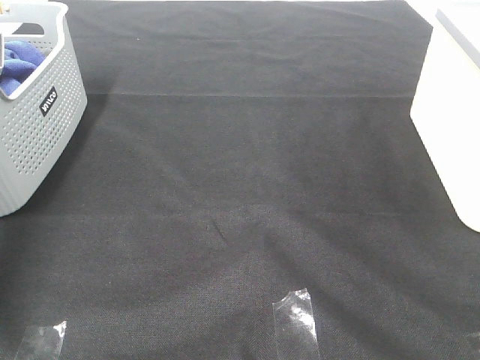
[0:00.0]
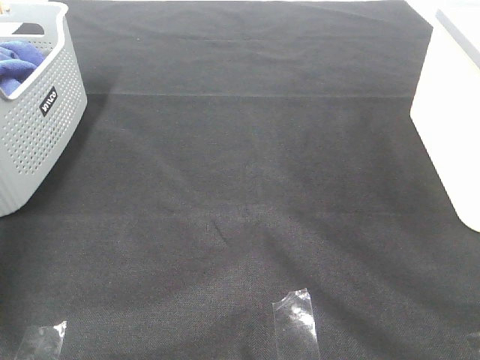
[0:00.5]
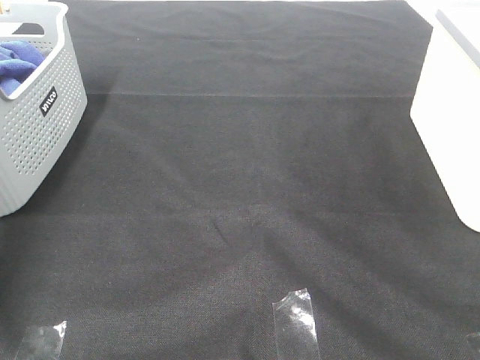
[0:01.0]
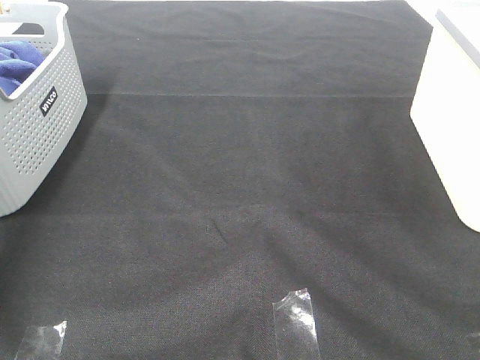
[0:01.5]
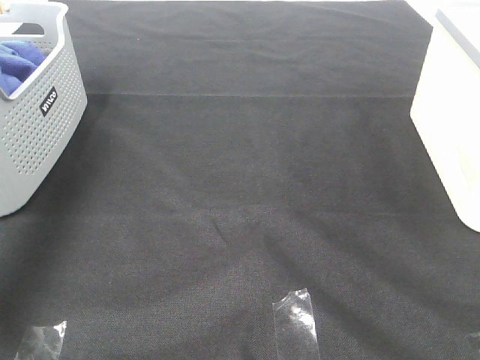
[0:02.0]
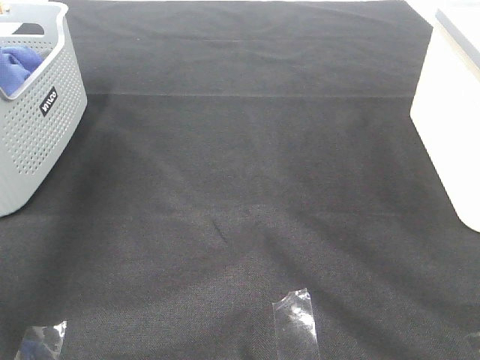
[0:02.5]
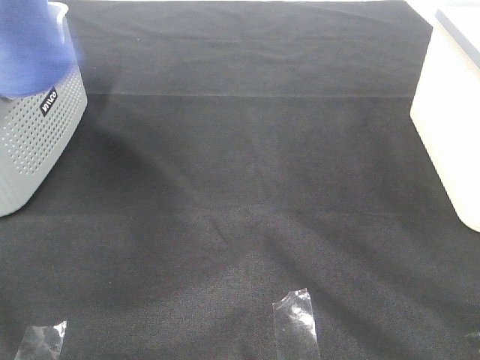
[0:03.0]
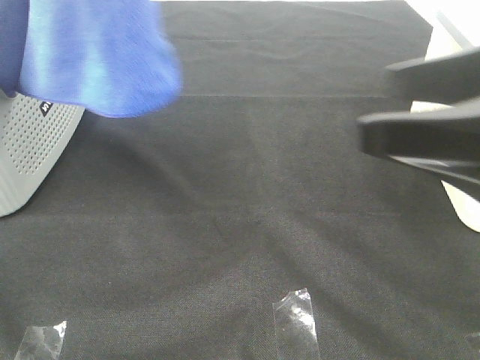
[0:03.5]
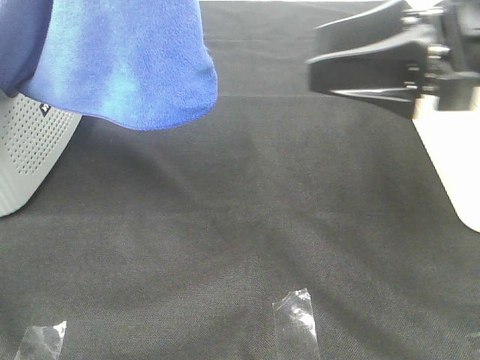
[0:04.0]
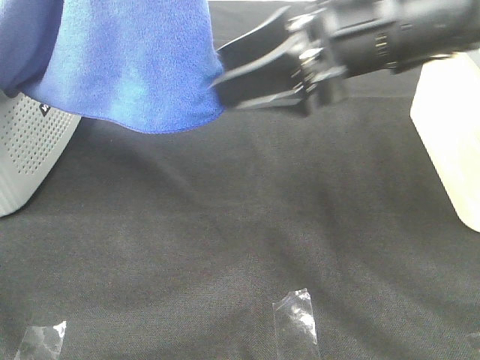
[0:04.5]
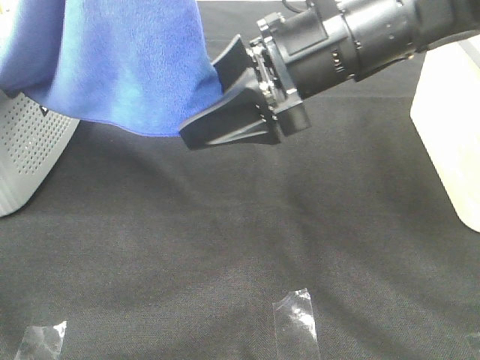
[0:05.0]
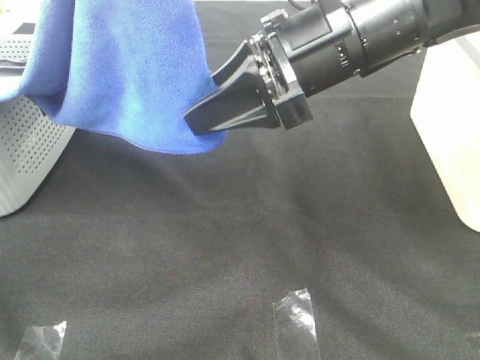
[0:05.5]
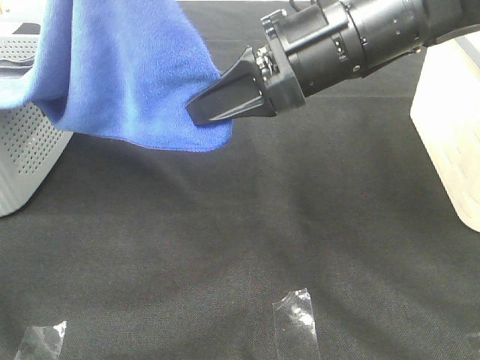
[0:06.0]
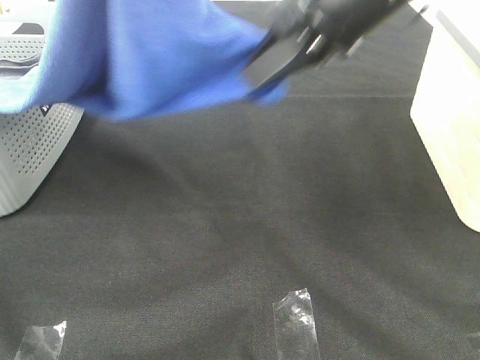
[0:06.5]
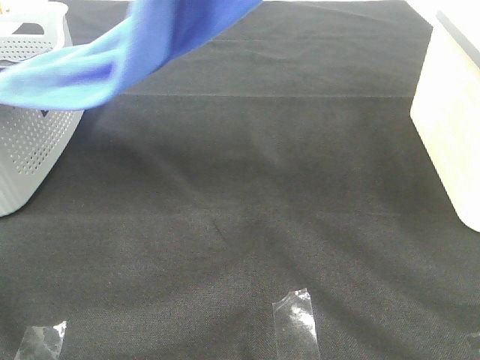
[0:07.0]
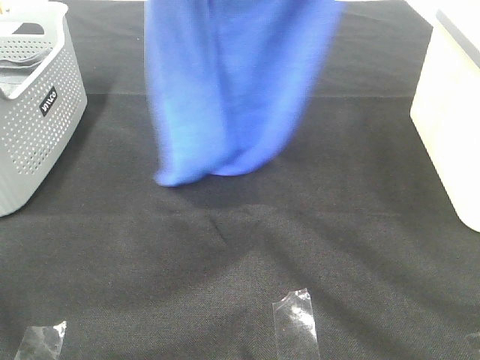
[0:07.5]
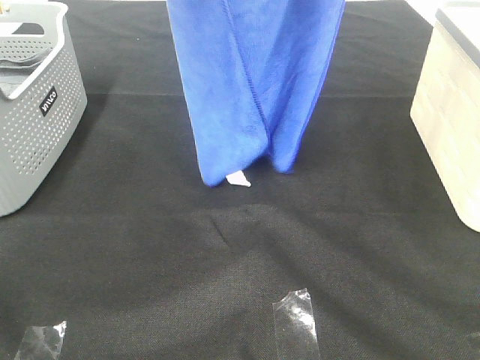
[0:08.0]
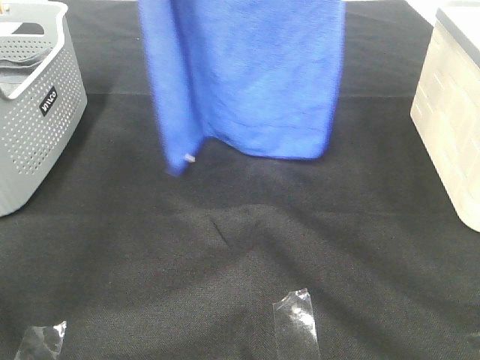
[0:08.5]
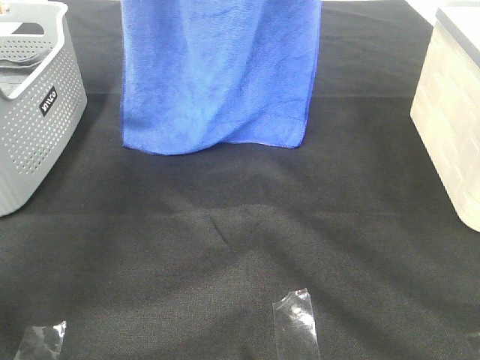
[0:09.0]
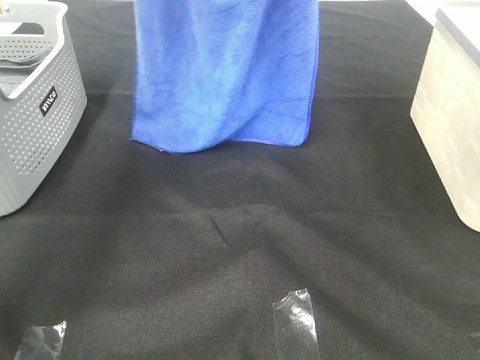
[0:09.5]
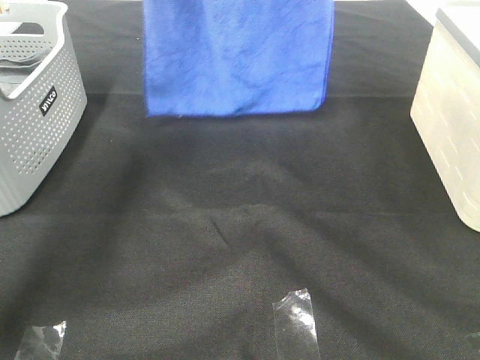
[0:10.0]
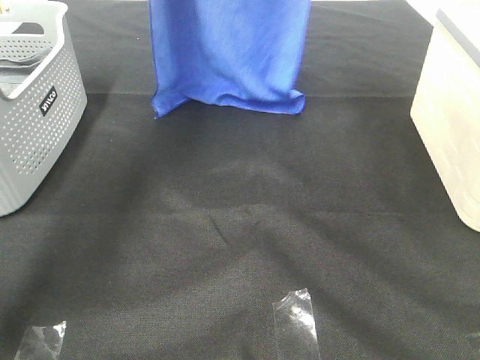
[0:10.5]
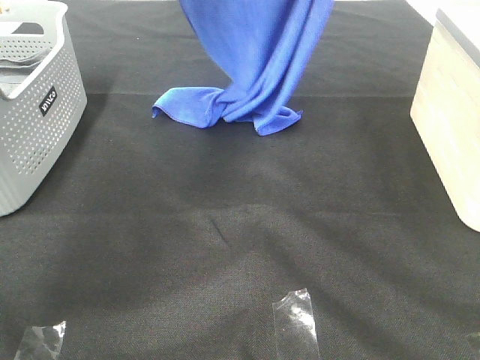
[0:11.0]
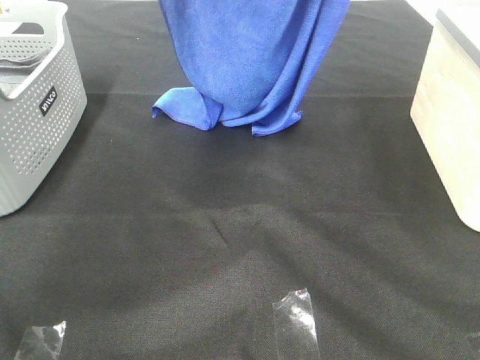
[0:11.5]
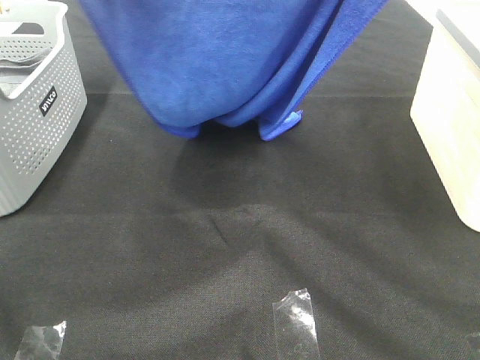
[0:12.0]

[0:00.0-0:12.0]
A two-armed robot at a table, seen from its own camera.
Task of the whole recording: Remove the towel and place it.
Step, 0:02.5 to 0:05.5: Right hand: grab a corner of the blue towel and straighten it.
Step, 0:06.0 to 0:11.5: Left hand: spread the blue towel flat on the table.
Step, 0:06.0 to 0:11.5: Right hand: spread the blue towel flat on the table.
0:00.0 to 0:02.0: The left gripper is displaced upward by approximately 25 cm, and closes up.
0:02.0 to 0:04.0: The left gripper heads to the right, backward and upward, covering about 30 cm. Meanwhile the right gripper goes some 25 cm forward.
0:04.0 to 0:06.0: The right gripper is displaced to the left by about 10 cm, and closes its fingers.
0:06.0 to 0:08.0: The right gripper heads upward, covering about 25 cm. The left gripper shifts some 15 cm forward.
0:08.0 to 0:10.0: The two grippers go approximately 15 cm forward.
0:10.0 to 0:12.0: The grippers both shift backward by approximately 15 cm.

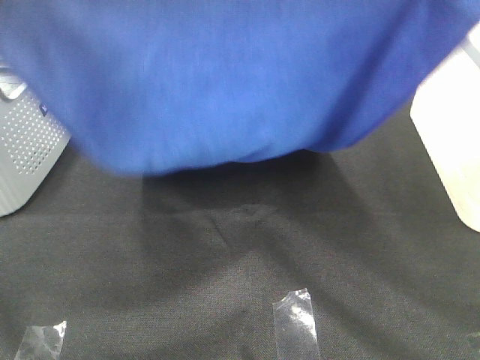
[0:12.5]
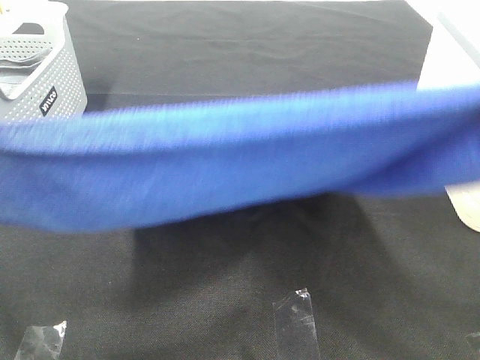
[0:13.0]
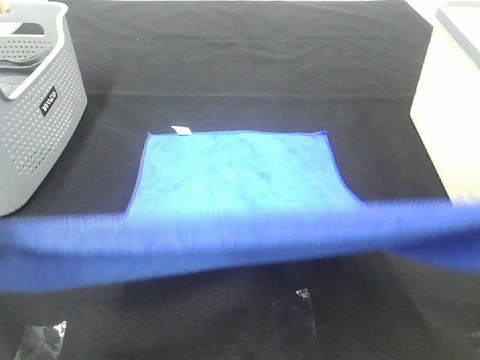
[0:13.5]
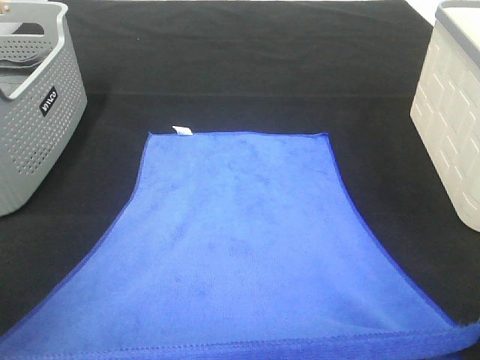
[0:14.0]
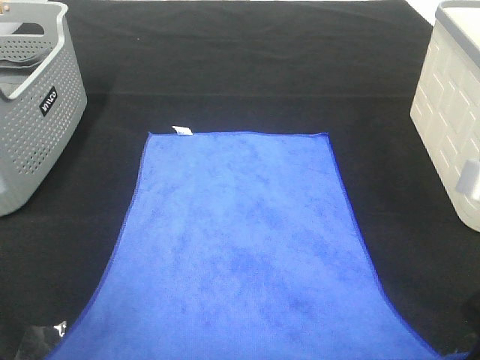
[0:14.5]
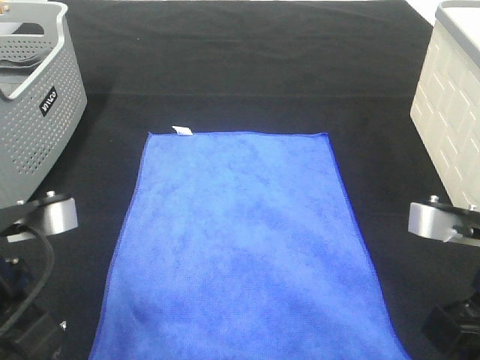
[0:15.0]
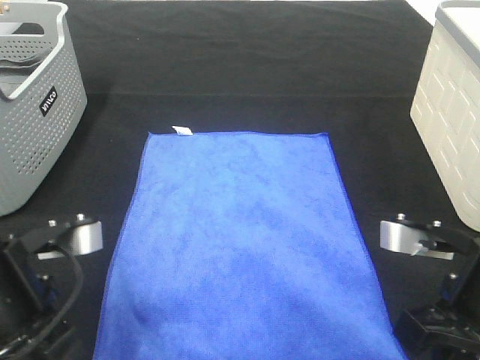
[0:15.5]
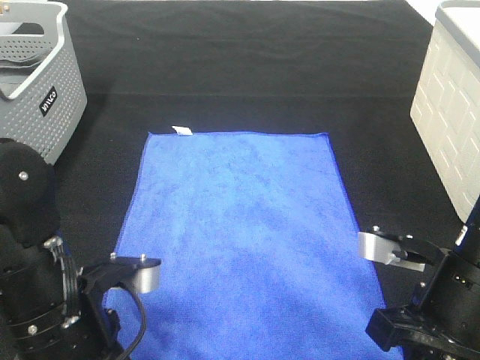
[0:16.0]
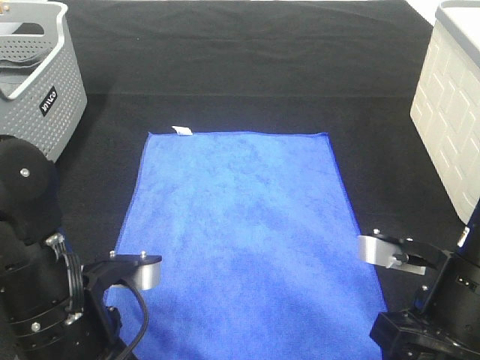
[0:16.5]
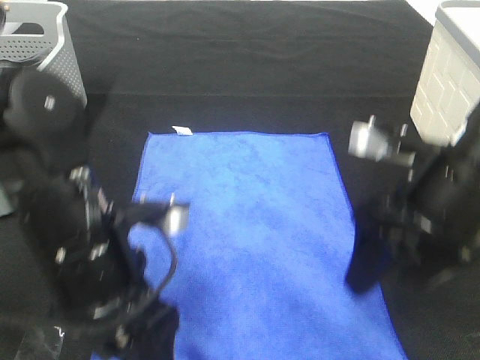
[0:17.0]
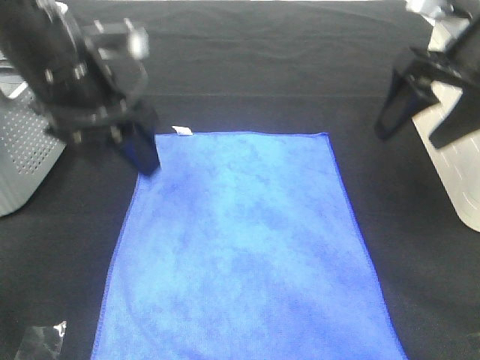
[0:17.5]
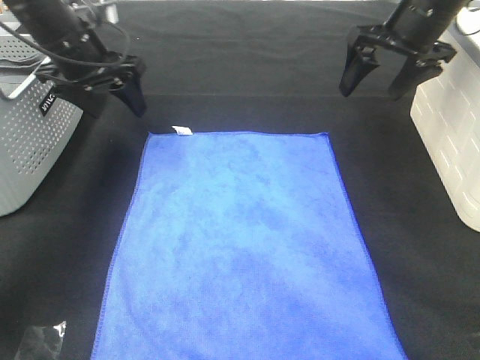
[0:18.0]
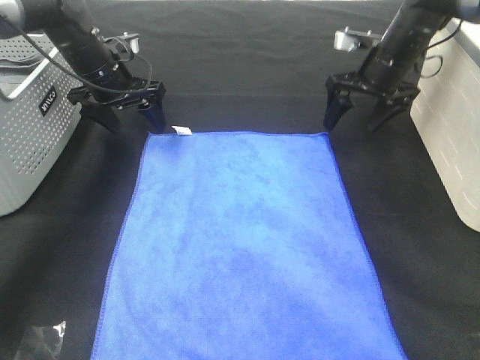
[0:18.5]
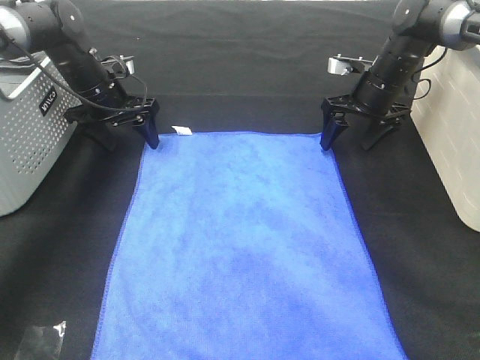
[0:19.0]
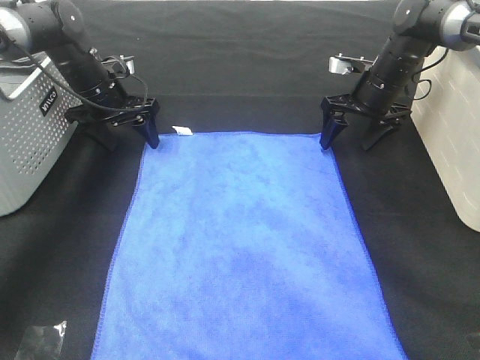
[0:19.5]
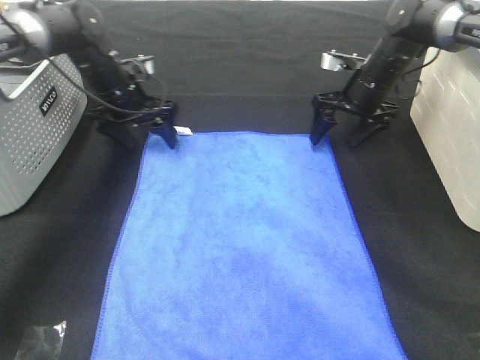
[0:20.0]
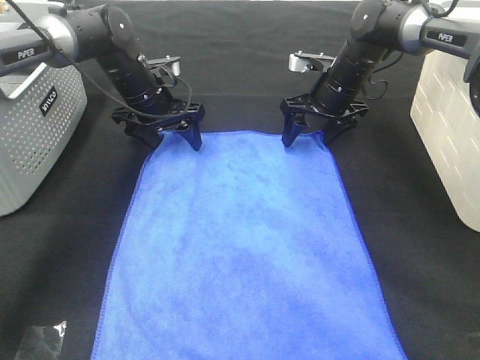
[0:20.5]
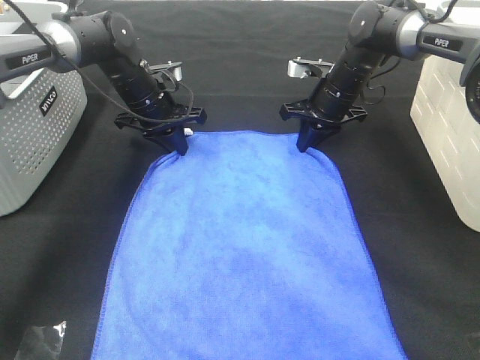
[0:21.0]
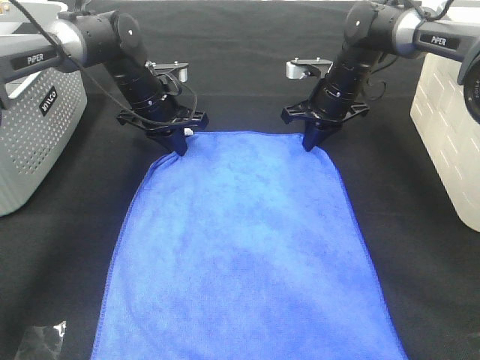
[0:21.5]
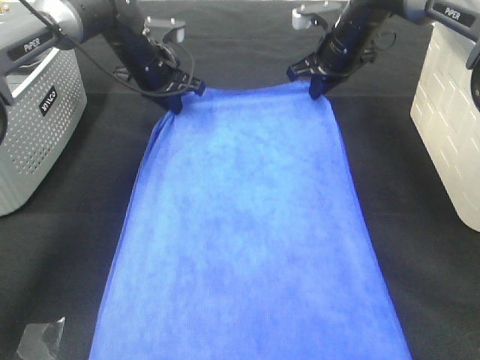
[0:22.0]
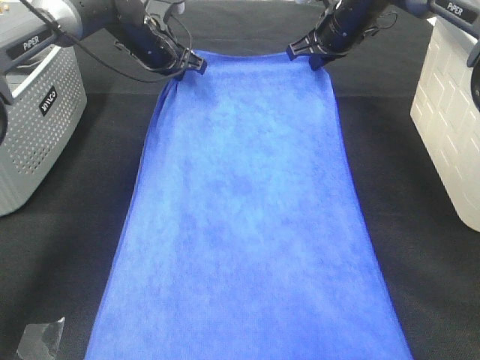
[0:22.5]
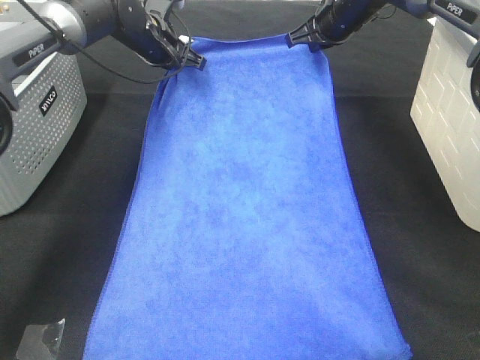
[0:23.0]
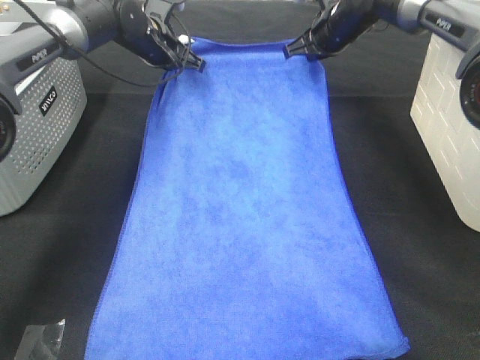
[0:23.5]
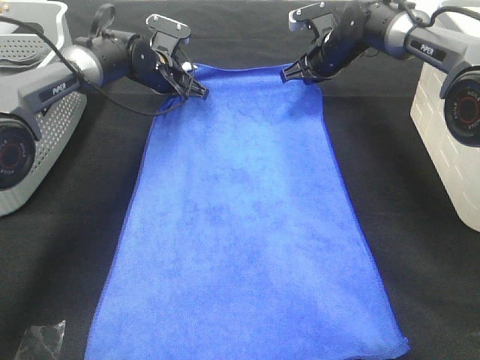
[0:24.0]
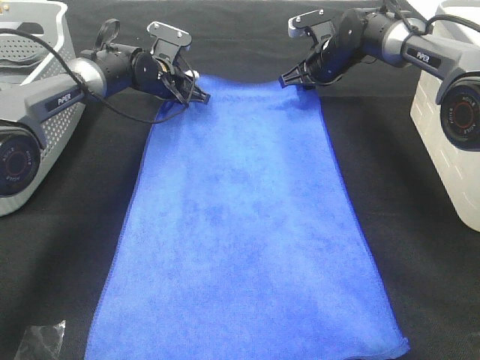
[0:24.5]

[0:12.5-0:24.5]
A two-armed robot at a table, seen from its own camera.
Task of the whole recording: Remove the towel and place it.
Step, 0:12.5 to 0:18.5: Left hand:adjust the blue towel.
Step, 0:12.5 to 0:18.5: Right hand:adjust the blue towel.
0:12.5 to 0:14.5: The left gripper travels downward by some 15 cm. Meanwhile the right gripper is displaced downward and backward by roughly 20 cm.
0:14.5 to 0:16.5: The left gripper shifts roughly 15 cm downward and to the right, and opens, while the right gripper heads downward, covering about 10 cm, and opens up.
0:16.5 to 0:18.5: Both grippers move forward, approximately 35 cm.
0:18.5 to 0:20.5: The right gripper is displaced to the left by approximately 5 cm. The left gripper is displaced to the right by some 5 cm.
0:20.5 to 0:22.5: The two grippers go approximately 10 cm upward. The right gripper closes its fingers. The left gripper closes its fingers.
0:22.5 to 0:24.5: Both grippers travel together downward, approximately 10 cm. The right gripper opens up; the left gripper opens its fingers.

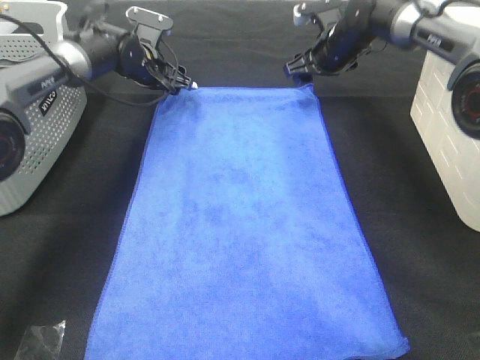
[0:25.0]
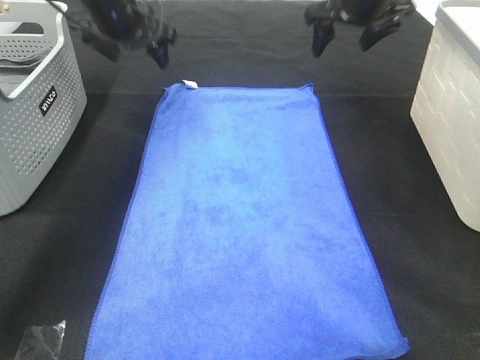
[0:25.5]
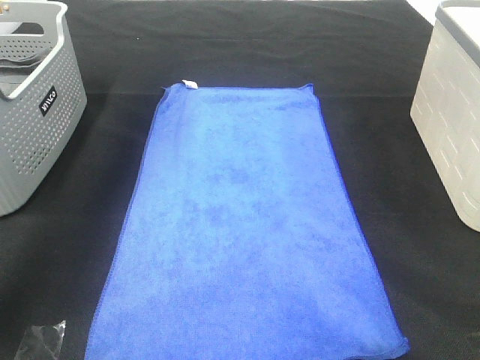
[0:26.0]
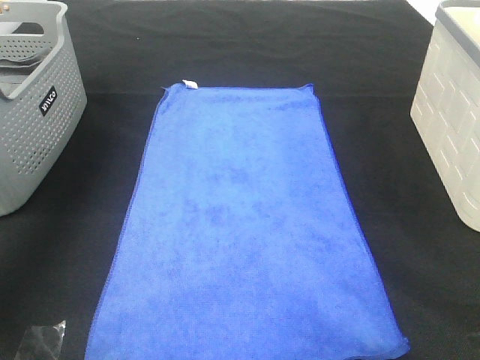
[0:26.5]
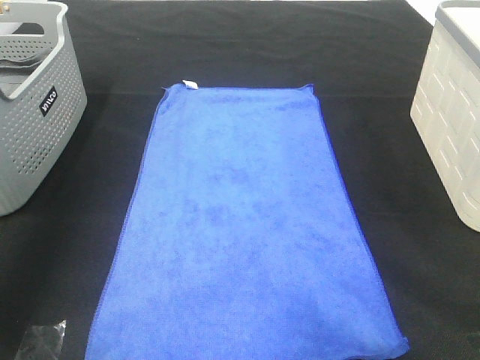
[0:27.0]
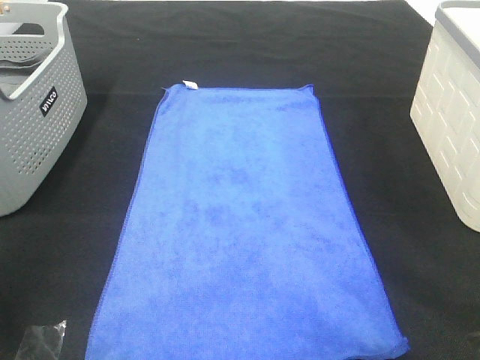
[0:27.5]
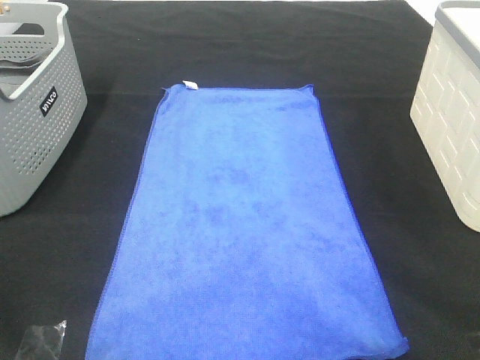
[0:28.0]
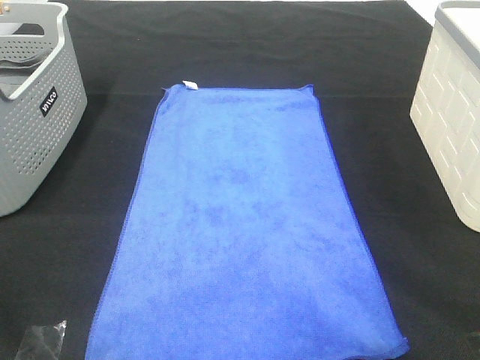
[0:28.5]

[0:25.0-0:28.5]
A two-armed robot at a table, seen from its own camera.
Task of the whole recording: Remove the towel and place it.
0:25.0 to 0:27.0: The left gripper moves backward, upward and to the left, some 50 cm; the right gripper travels backward and upward by about 50 cm.
0:27.0 to 0:28.5: The left gripper moves backward and downward, some 30 cm.
